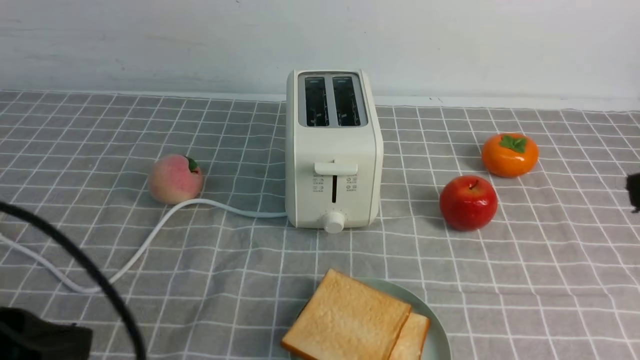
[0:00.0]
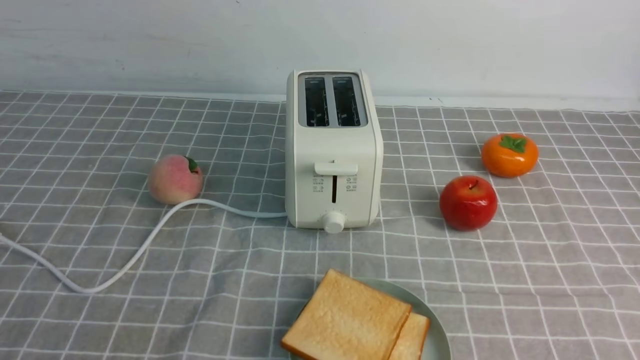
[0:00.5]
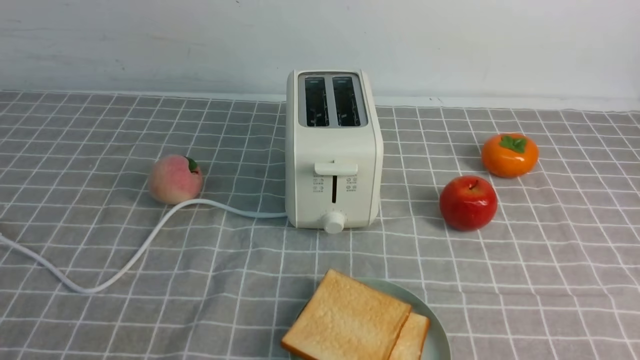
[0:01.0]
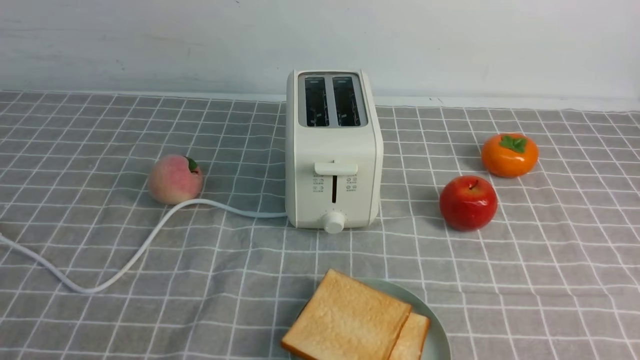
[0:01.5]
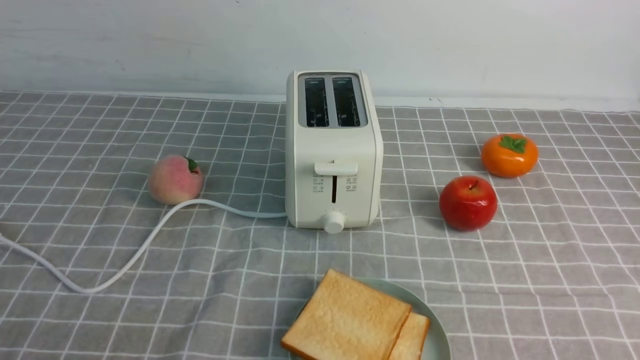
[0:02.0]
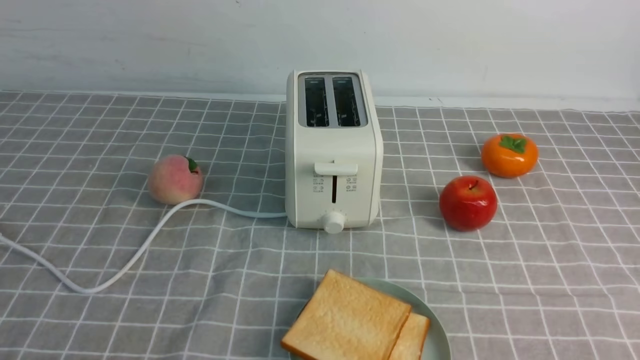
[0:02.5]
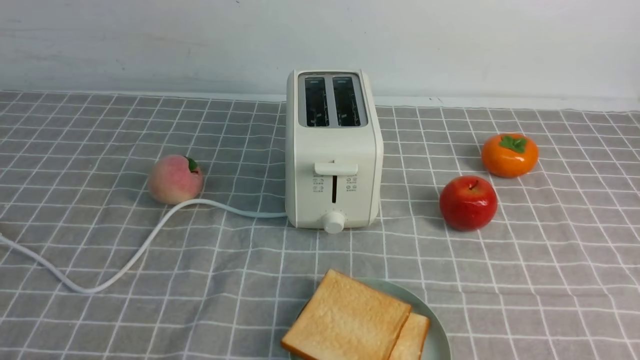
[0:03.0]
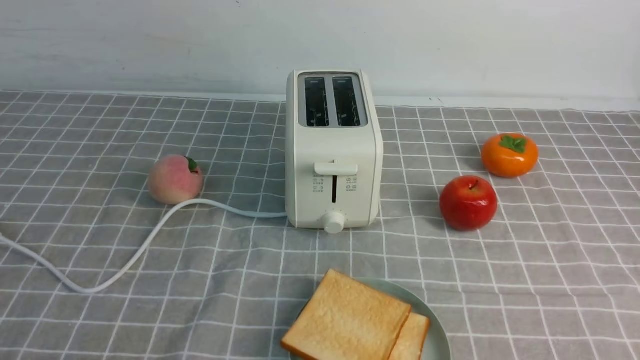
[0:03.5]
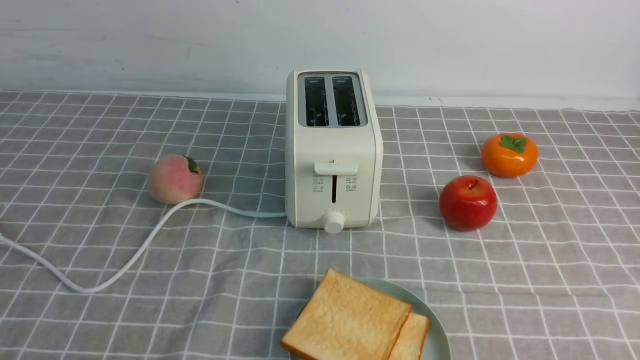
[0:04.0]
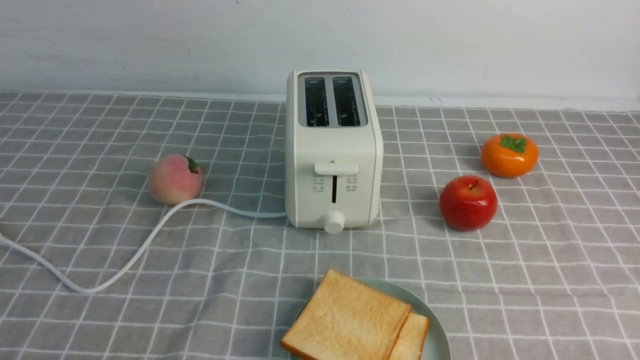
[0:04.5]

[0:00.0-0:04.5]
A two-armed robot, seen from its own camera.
Task of the whole recording: take toasted bread from bread machine on grey coffee table place on plate.
0:00.0 to 0:02.0: The left gripper moves downward, some 10 cm.
